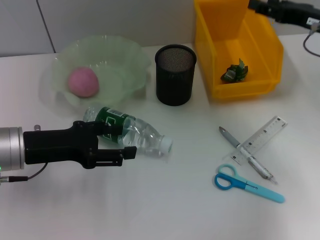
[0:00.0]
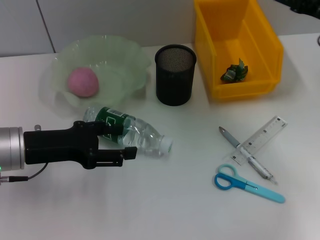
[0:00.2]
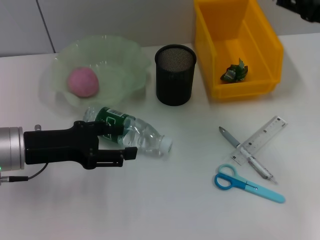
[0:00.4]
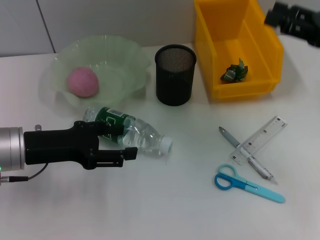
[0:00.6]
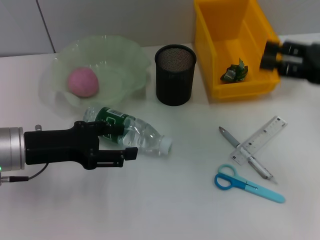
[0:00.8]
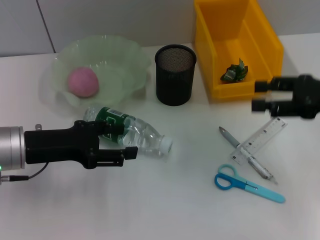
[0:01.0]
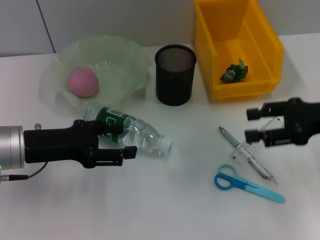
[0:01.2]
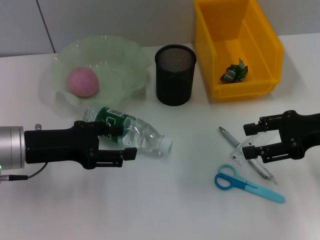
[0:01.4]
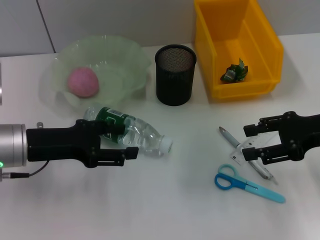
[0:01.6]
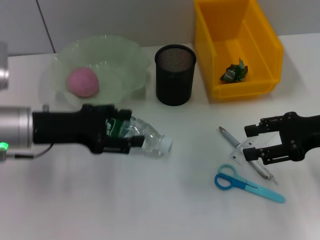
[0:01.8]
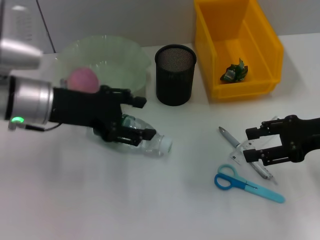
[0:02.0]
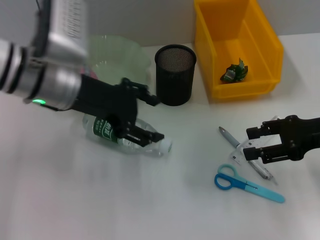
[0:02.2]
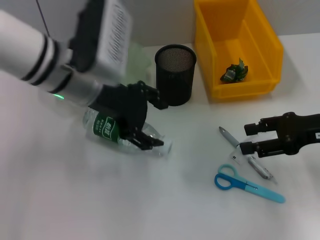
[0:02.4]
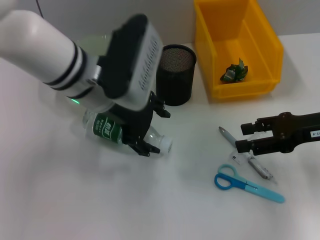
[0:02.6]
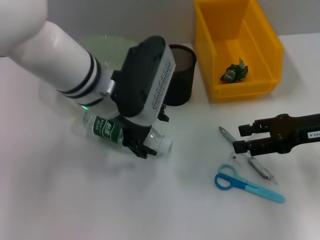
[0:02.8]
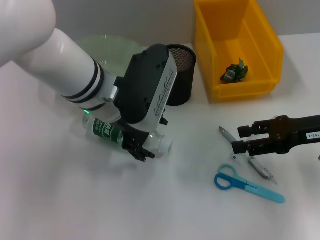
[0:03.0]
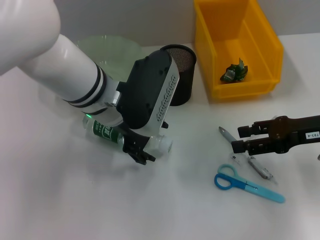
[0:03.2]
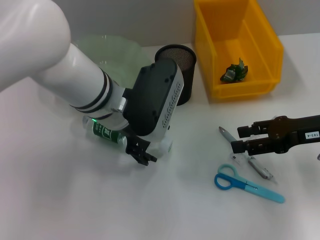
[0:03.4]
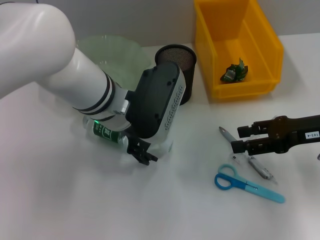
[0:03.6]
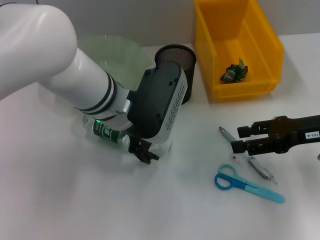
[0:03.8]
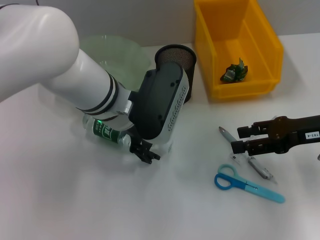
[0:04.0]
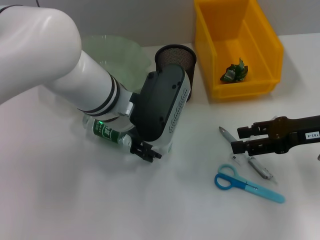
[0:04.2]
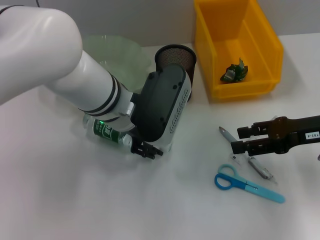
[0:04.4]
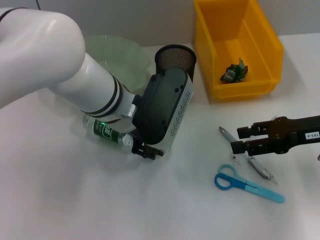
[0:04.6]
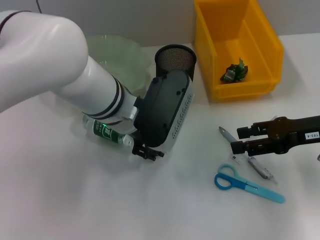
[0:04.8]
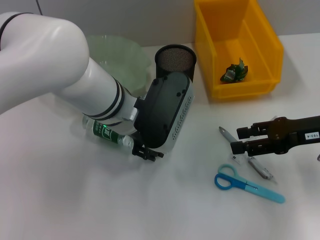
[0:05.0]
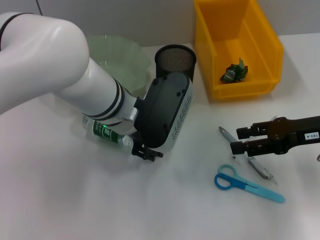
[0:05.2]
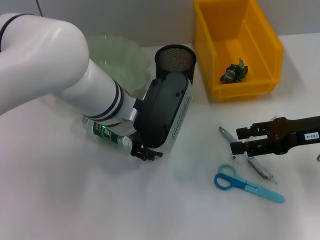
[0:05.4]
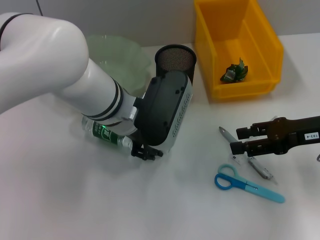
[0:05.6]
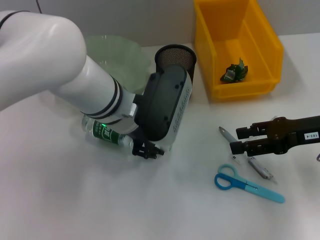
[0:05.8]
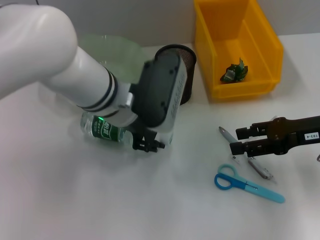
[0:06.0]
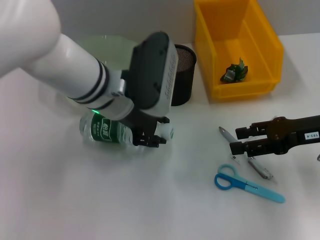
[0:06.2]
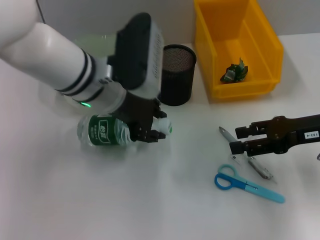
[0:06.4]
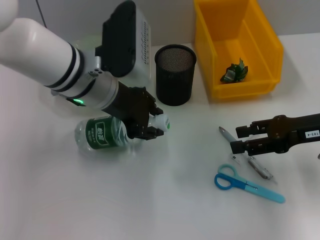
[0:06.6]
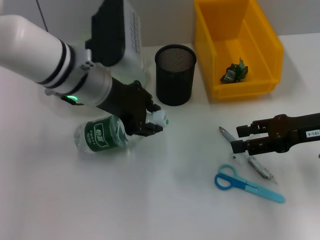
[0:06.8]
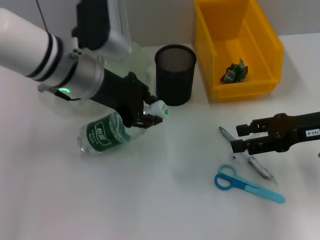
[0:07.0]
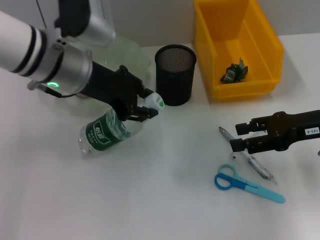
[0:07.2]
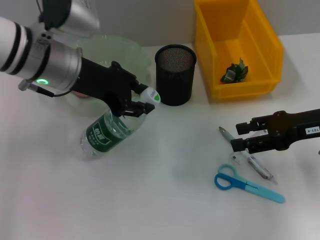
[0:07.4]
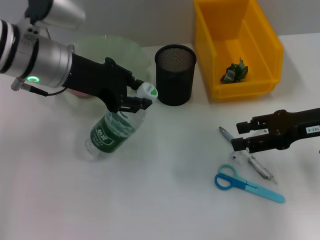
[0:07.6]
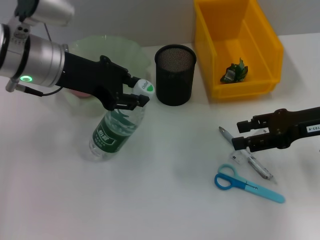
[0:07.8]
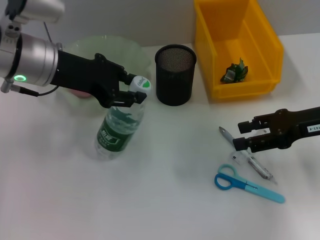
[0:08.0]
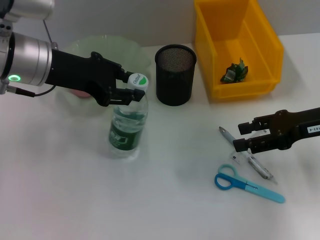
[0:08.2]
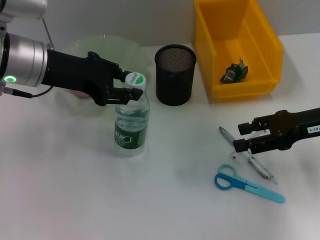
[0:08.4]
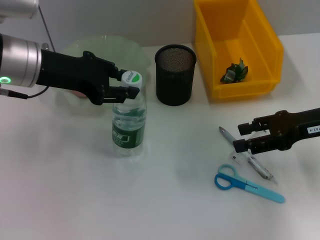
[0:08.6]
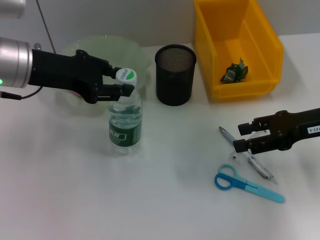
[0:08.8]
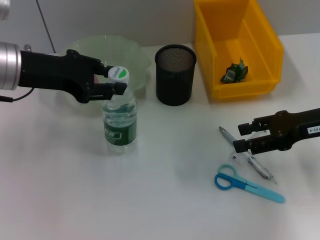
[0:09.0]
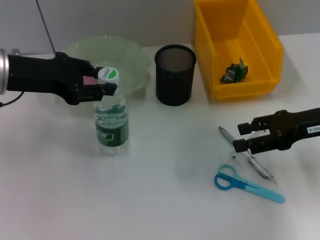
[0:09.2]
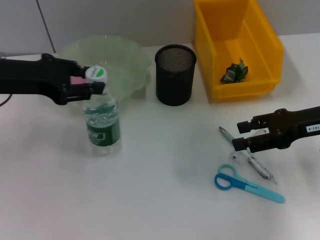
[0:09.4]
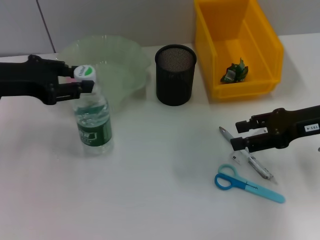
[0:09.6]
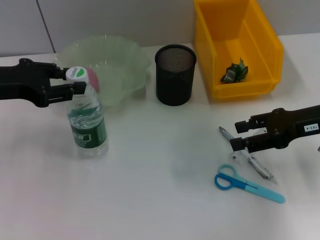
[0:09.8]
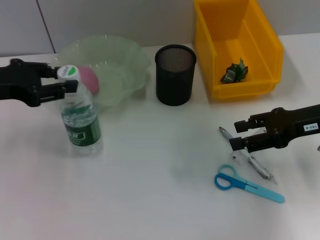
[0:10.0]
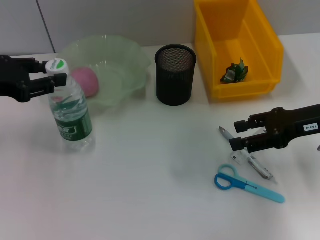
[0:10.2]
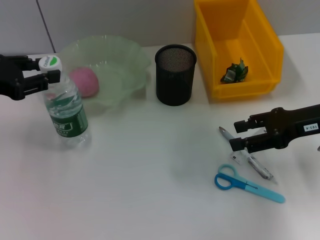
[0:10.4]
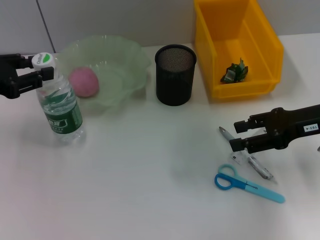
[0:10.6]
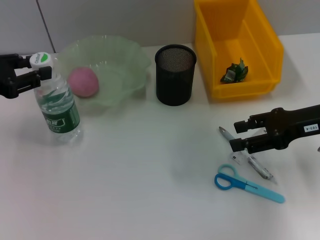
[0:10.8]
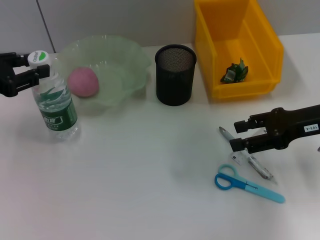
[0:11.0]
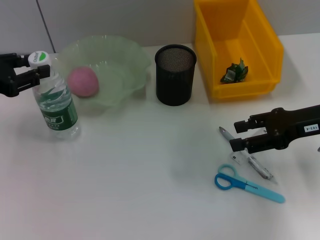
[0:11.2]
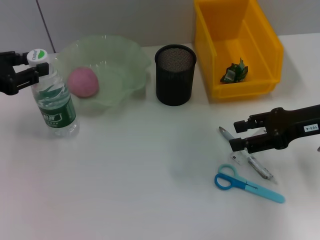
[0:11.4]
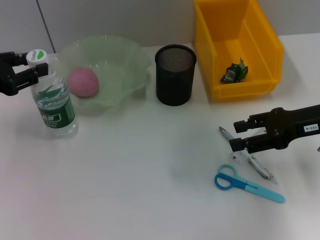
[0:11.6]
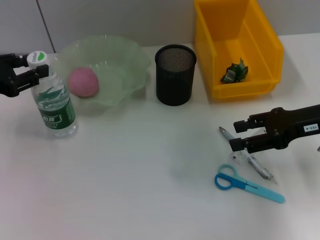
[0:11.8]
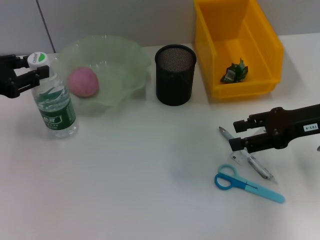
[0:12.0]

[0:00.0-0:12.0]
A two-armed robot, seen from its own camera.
Step, 0:00.0 to 0:04.8: Grab the water bottle with the left hand.
0:00.0 to 0:01.6: The right gripper moves backward, some 10 cm.
0:01.6 to 0:03.0: The left gripper goes approximately 15 cm to the right.
0:03.0 to 0:04.4: The grippers move only a little.
0:04.4 to 0:06.0: The left gripper closes its fingers.
0:06.0 to 0:07.6: The left gripper shifts roughly 10 cm to the left and upward.
0:07.6 to 0:09.0: The left gripper moves to the left, roughly 5 cm.
0:09.0 to 0:10.4: The left gripper moves to the left, roughly 10 cm.
0:10.4 to 0:12.0: The grippers make only small movements.

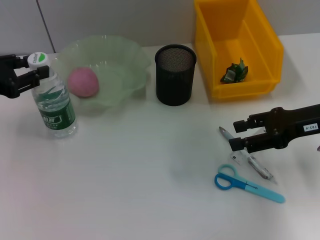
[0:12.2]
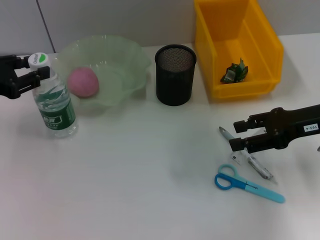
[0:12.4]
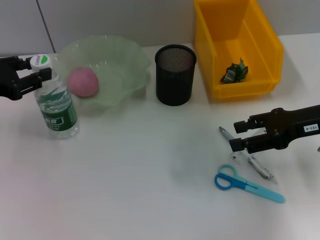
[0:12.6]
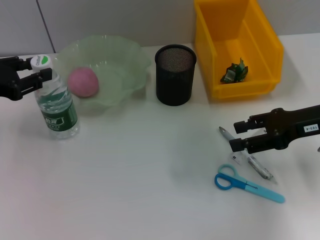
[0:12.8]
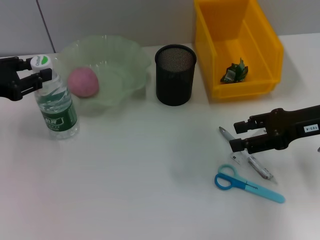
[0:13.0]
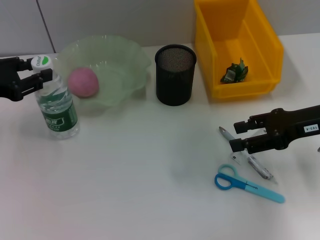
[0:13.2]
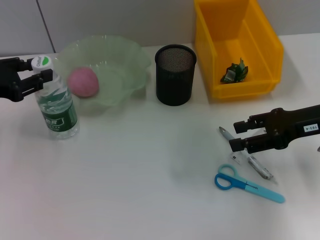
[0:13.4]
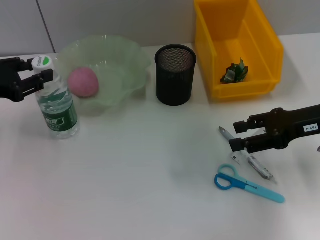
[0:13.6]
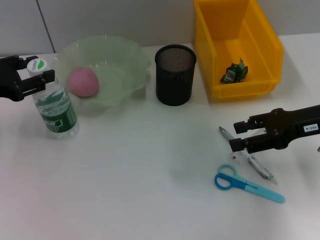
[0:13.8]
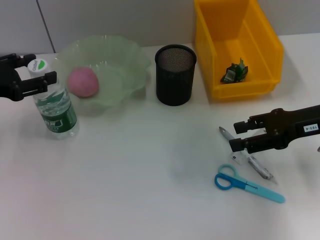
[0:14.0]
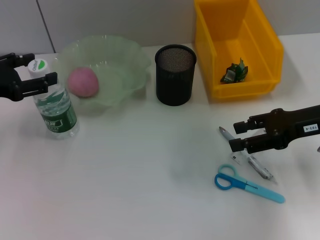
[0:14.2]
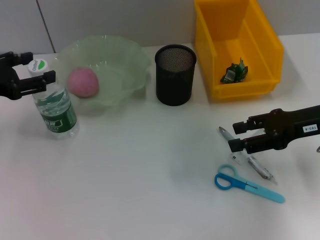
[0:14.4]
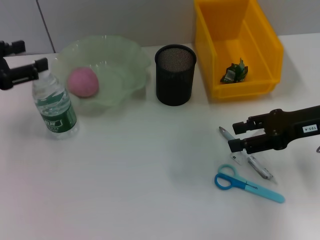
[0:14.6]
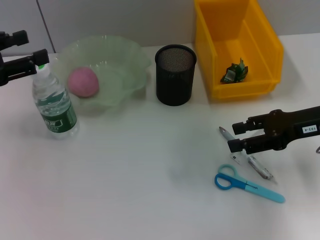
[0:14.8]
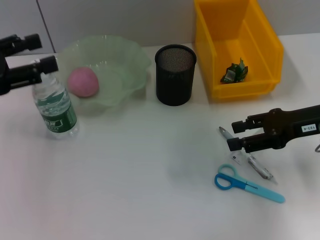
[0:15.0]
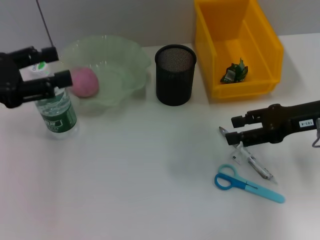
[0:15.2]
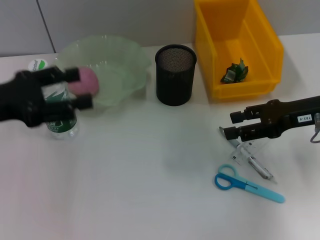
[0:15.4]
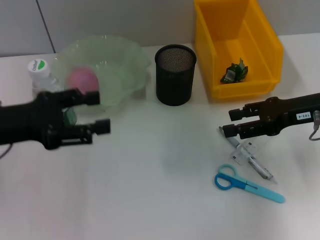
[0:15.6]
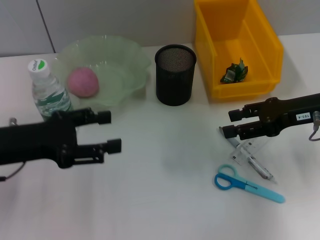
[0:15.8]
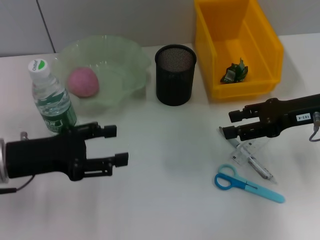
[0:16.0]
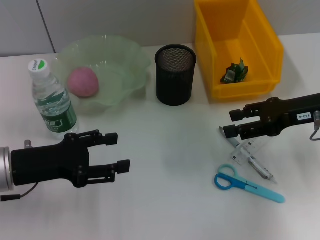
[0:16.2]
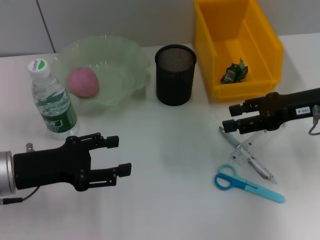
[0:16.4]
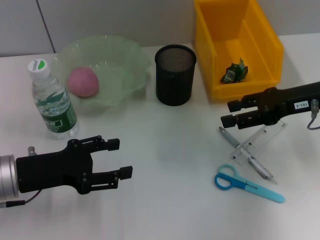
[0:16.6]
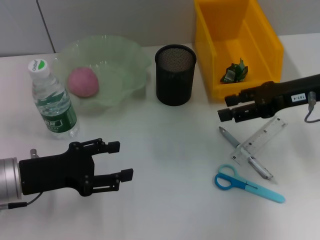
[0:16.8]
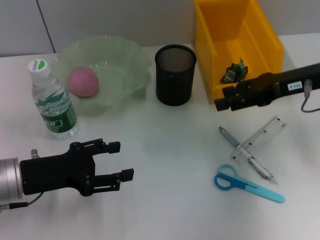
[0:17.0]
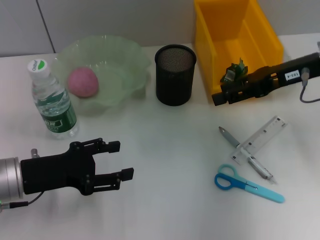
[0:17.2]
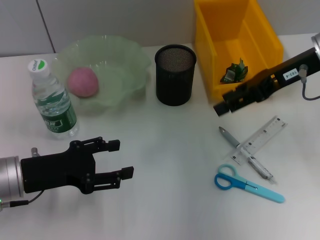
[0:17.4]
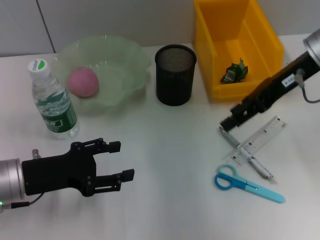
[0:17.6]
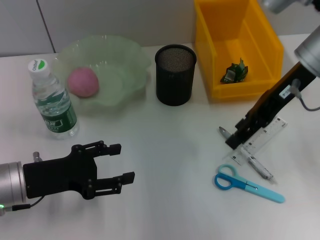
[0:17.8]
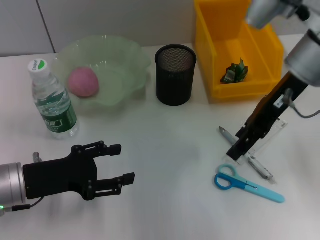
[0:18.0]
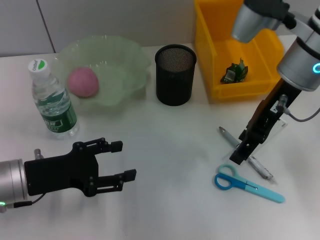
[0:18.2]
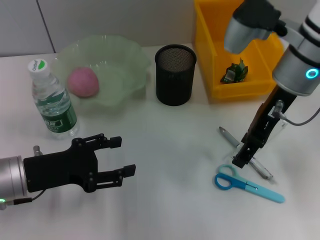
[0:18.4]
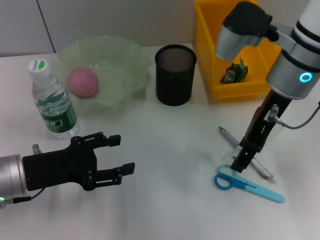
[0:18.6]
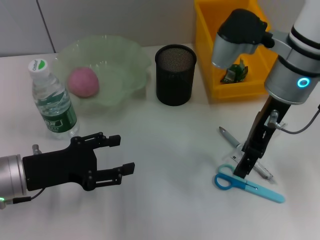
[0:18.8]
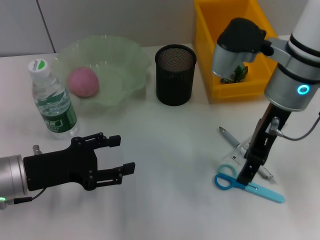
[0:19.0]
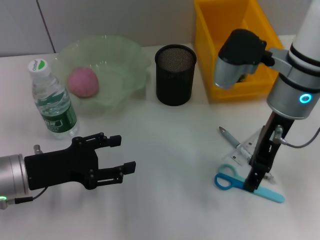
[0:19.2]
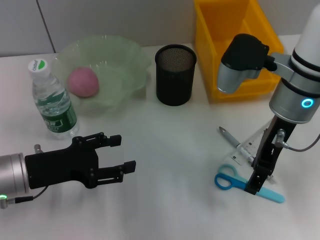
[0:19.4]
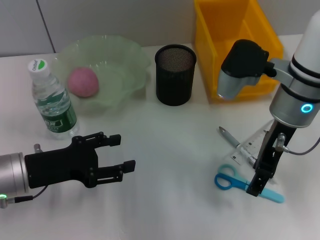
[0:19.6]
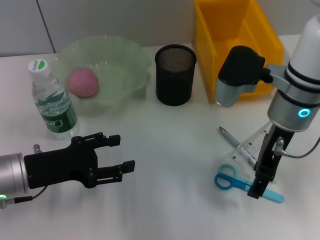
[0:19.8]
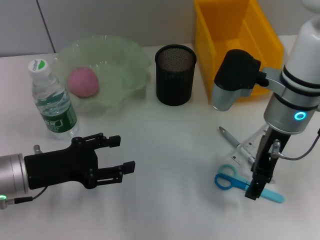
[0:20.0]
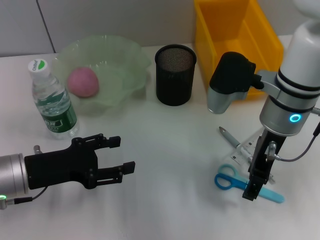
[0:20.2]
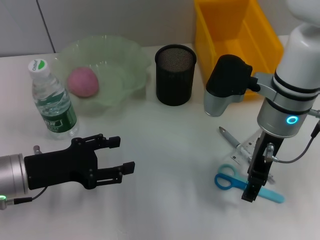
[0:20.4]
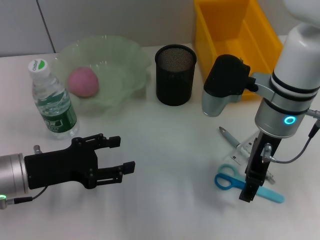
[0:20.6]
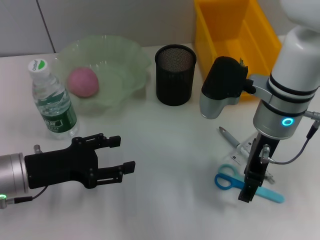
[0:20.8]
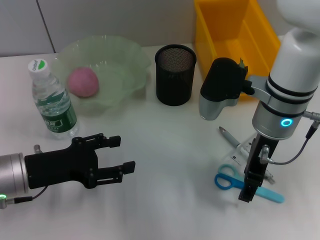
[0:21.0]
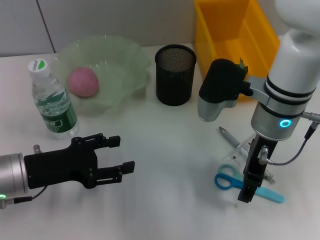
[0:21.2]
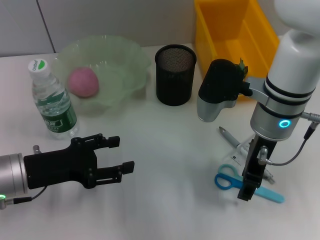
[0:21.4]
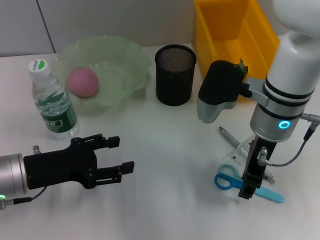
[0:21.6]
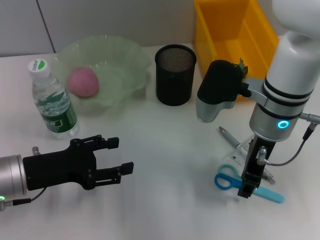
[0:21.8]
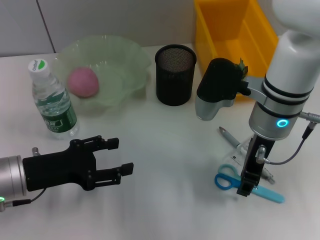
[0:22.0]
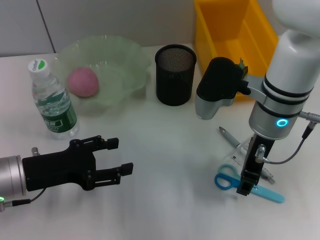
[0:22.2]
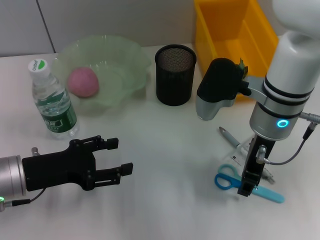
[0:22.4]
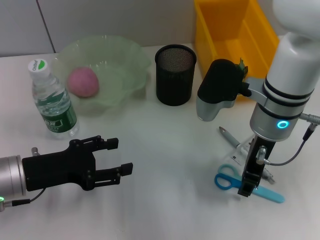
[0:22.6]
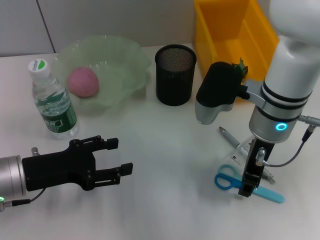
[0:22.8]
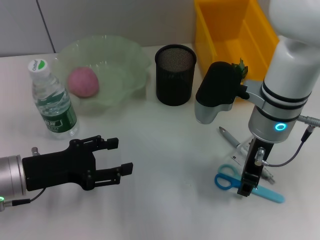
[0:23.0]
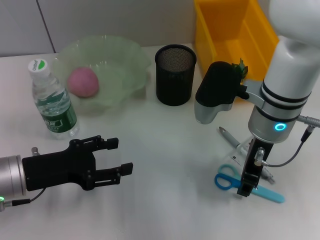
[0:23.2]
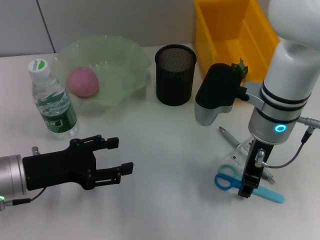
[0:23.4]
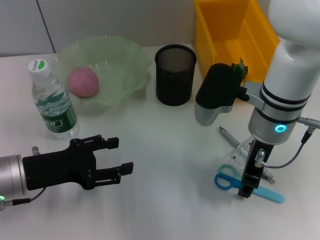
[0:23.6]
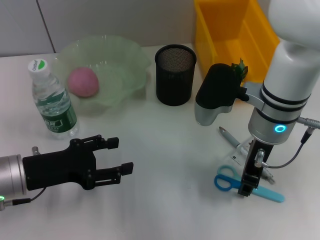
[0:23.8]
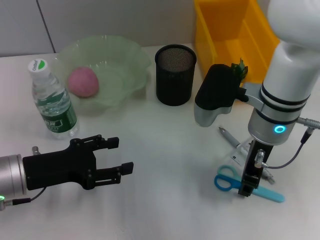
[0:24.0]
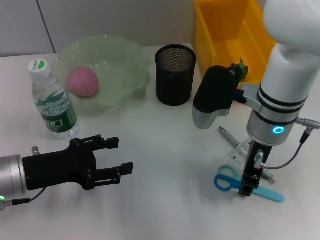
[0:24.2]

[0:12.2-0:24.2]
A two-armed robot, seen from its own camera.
Step, 0:12.2 to 0:14.2: Place the water bottle on the table with the left hand.
0:12.2 to 0:13.8: Both grippers stay put.
0:15.2 to 0:16.6: The left gripper goes some 10 cm downward and to the right.
0:16.6 to 0:18.2: The right gripper heads to the left and upward, covering roughly 10 cm.
0:18.2 to 0:19.8: The right gripper shifts by some 5 cm.
0:19.8 to 0:21.2: There are only small adjustments of the grippers.
0:21.2 to 0:24.2: Neither gripper changes place.
